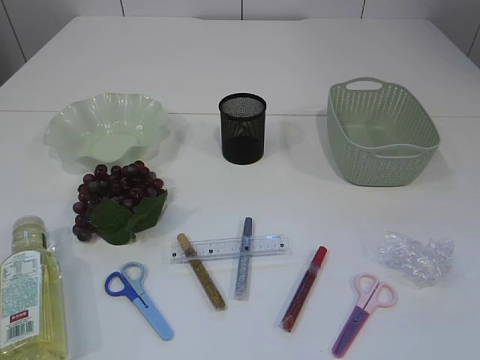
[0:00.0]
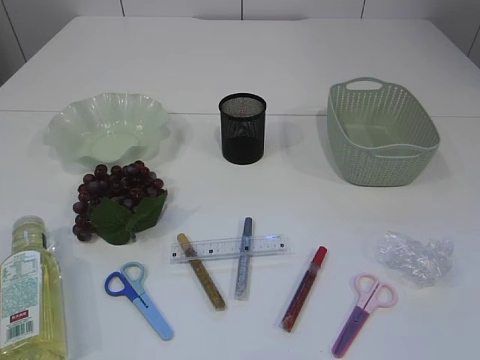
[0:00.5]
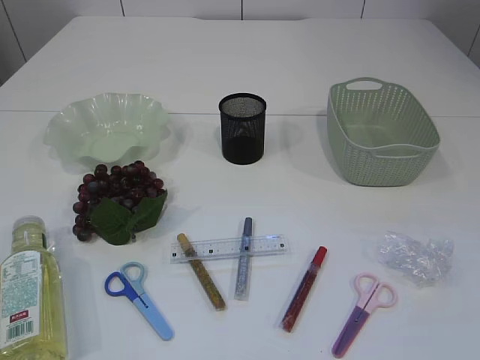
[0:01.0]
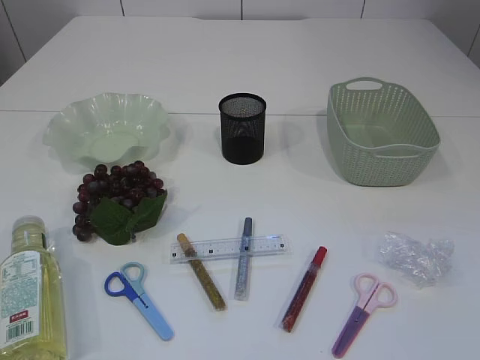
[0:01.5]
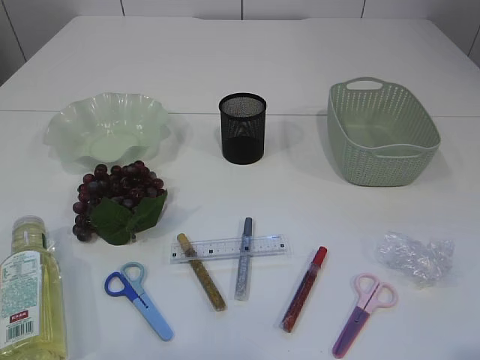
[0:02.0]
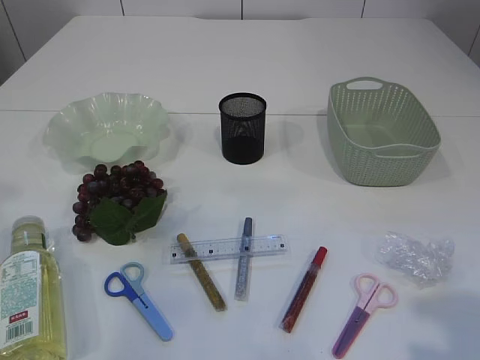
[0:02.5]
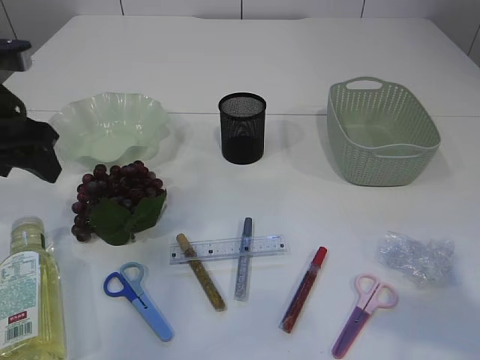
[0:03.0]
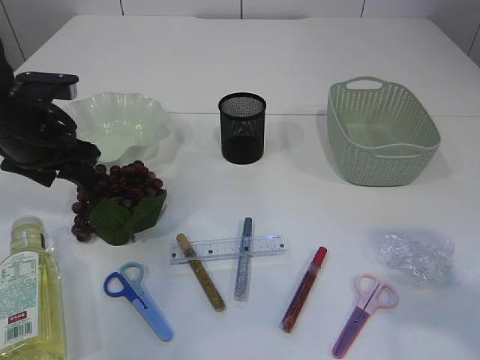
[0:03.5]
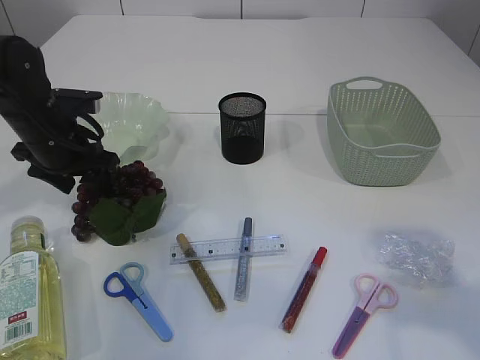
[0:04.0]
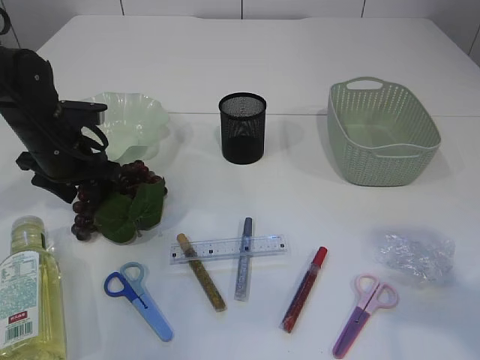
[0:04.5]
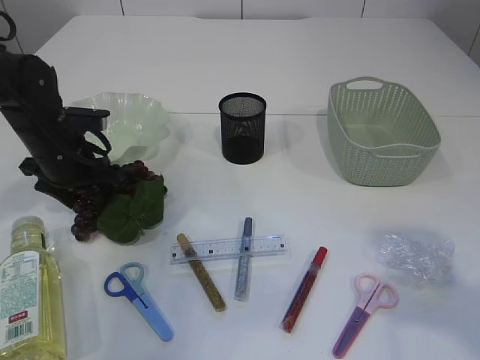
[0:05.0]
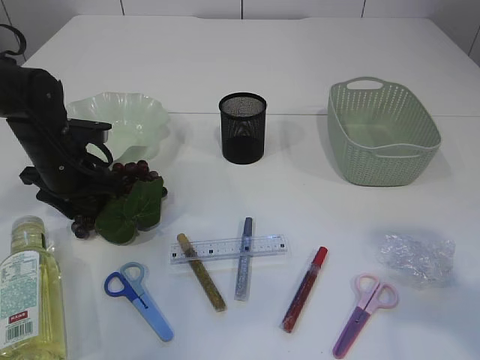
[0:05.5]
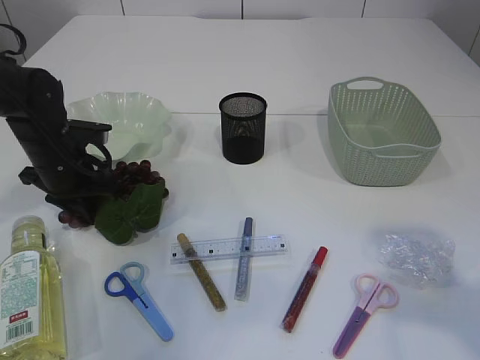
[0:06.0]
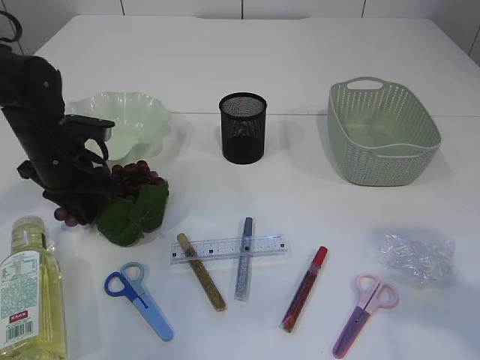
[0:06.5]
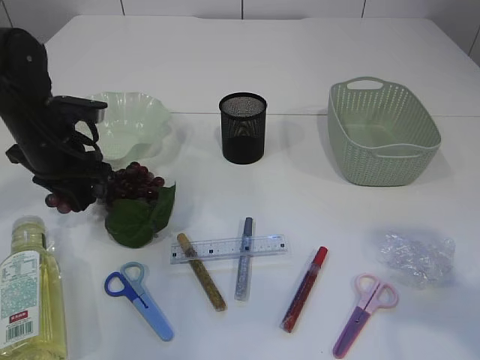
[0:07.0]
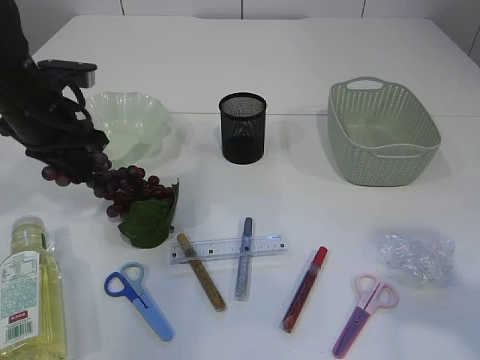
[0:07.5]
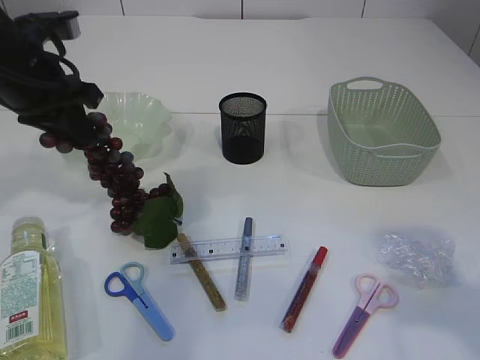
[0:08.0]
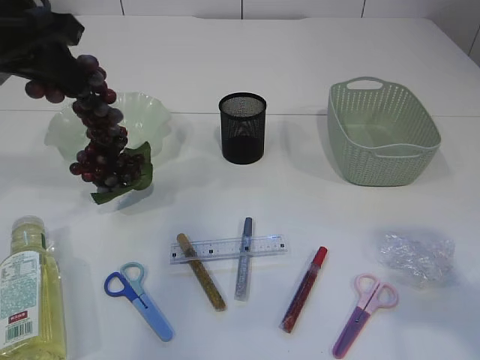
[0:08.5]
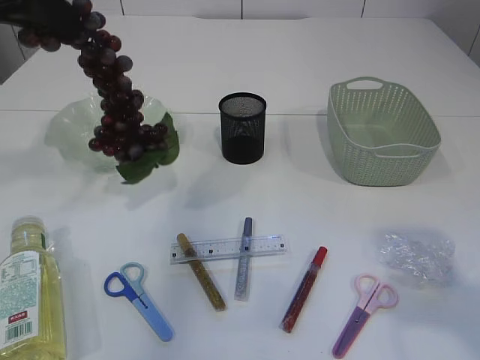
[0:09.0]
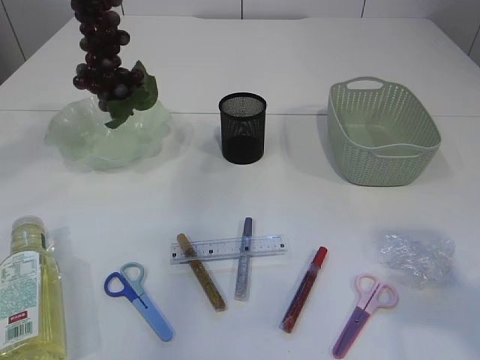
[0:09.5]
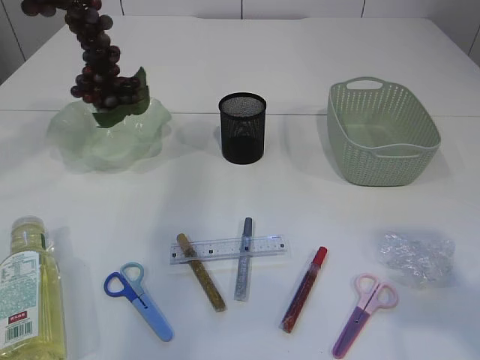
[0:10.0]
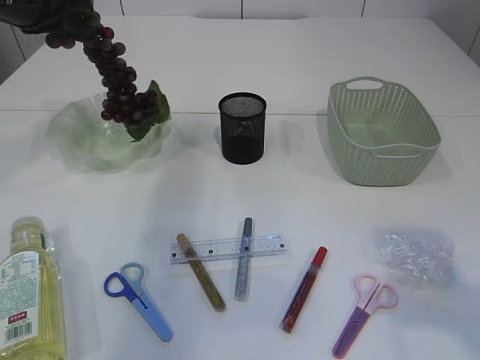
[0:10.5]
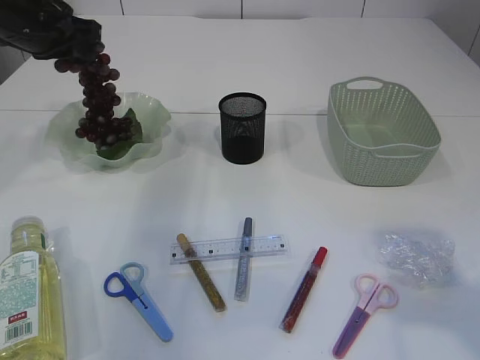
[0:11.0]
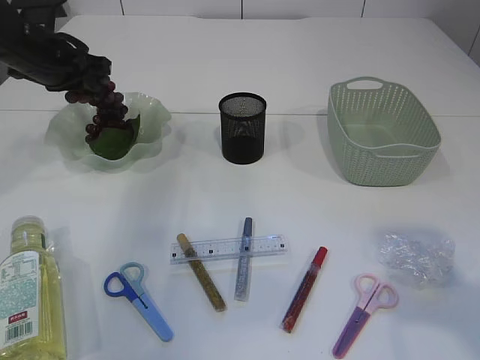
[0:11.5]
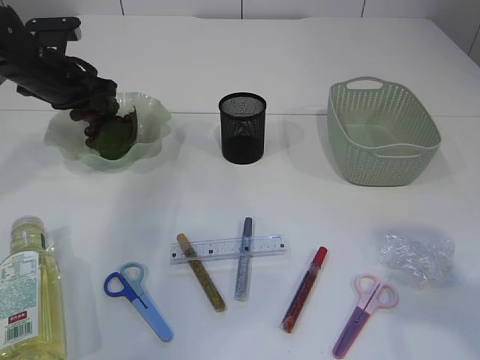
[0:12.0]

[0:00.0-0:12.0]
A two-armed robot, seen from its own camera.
Step, 0:00.0 to 0:08.5: Pick up the grapes.
0:02.0 to 0:04.0: The left gripper heads forward and downward, covering about 40 cm; the right gripper shifts approximately 15 cm forward.
0:04.0 to 0:06.0: The left gripper closes its fingers.
0:06.0 to 0:08.0: The left gripper goes roughly 15 cm upward.
0:08.0 to 0:10.0: The left gripper is displaced upward by some 10 cm.
0:10.0 to 0:12.0: The left gripper shifts some 20 cm downward and forward.

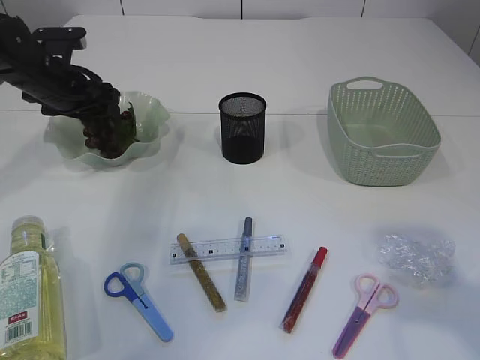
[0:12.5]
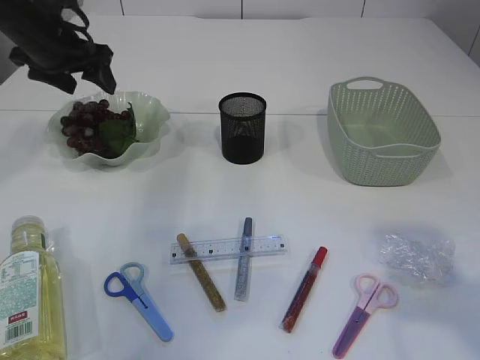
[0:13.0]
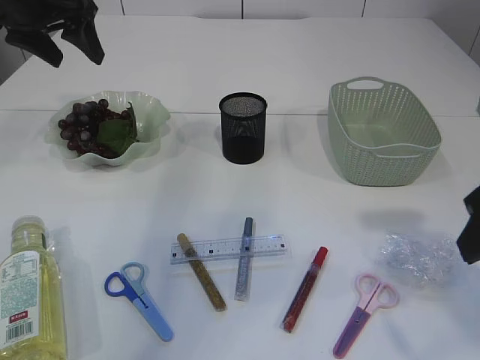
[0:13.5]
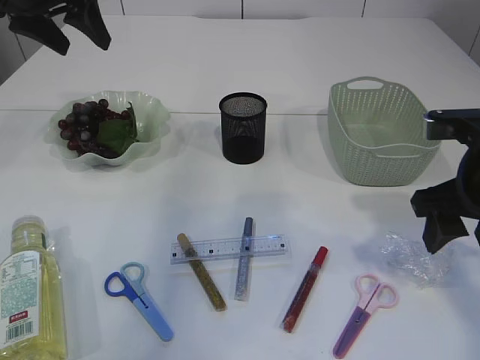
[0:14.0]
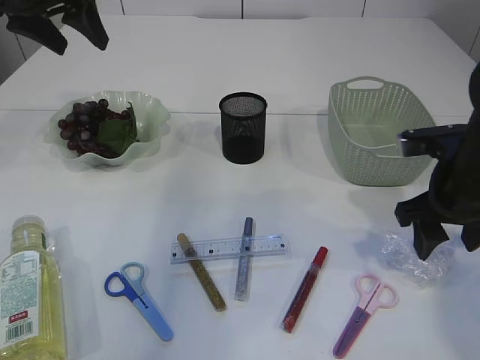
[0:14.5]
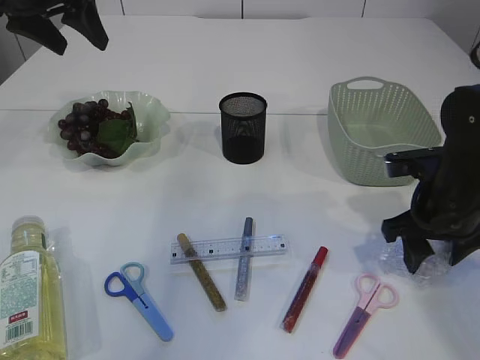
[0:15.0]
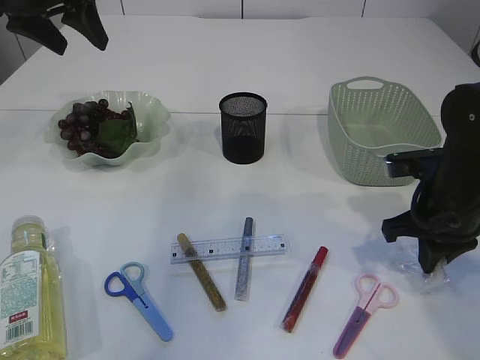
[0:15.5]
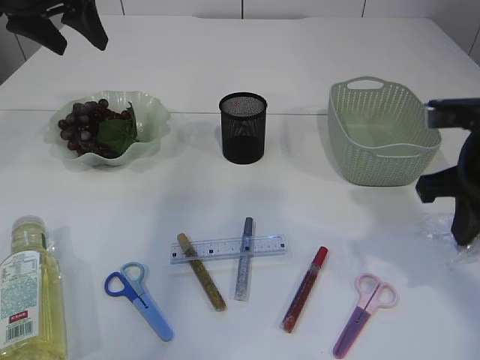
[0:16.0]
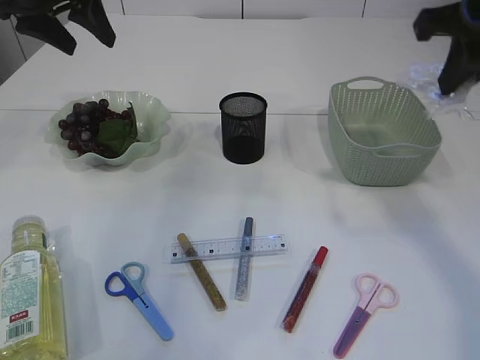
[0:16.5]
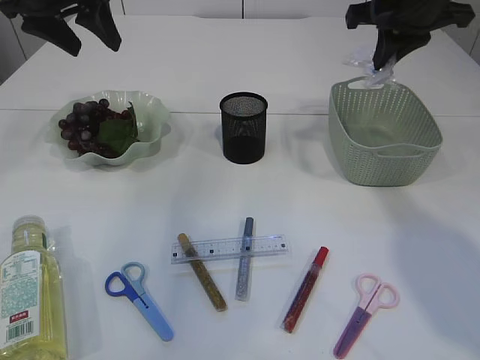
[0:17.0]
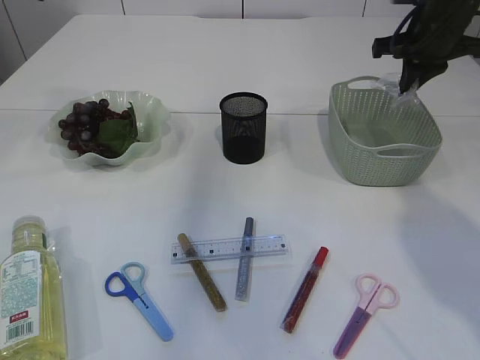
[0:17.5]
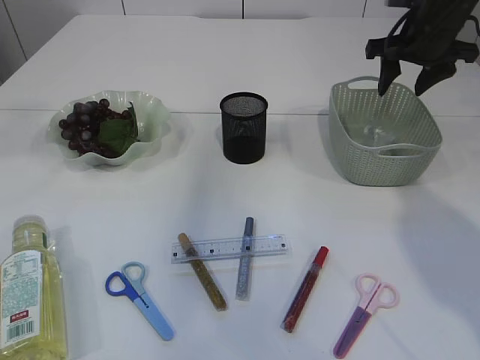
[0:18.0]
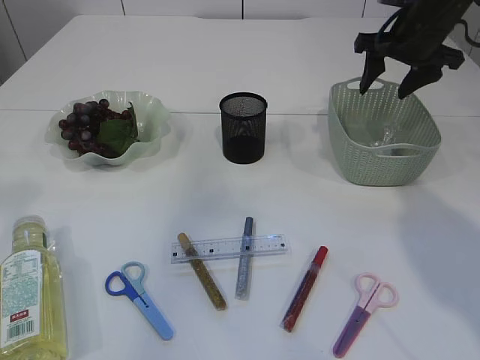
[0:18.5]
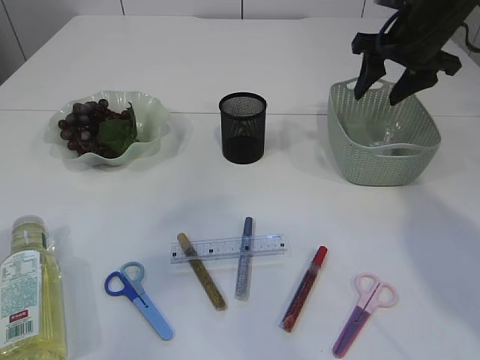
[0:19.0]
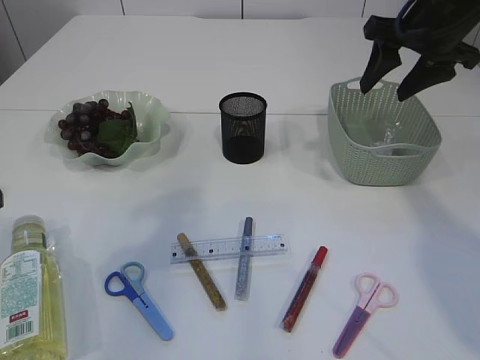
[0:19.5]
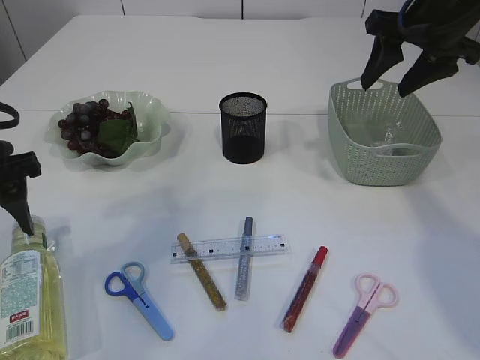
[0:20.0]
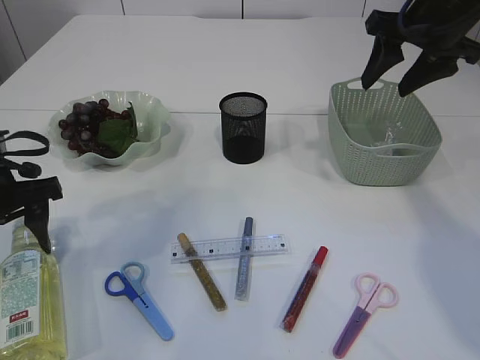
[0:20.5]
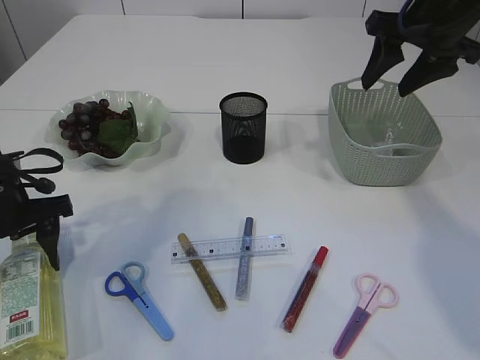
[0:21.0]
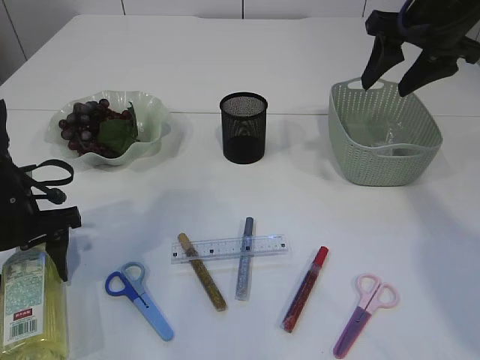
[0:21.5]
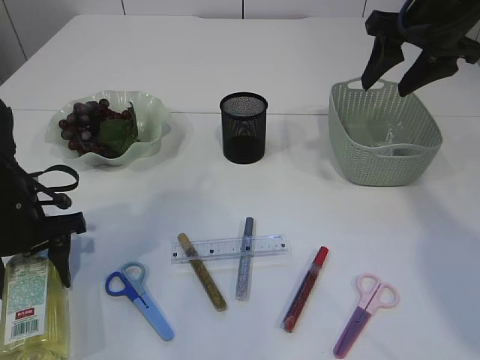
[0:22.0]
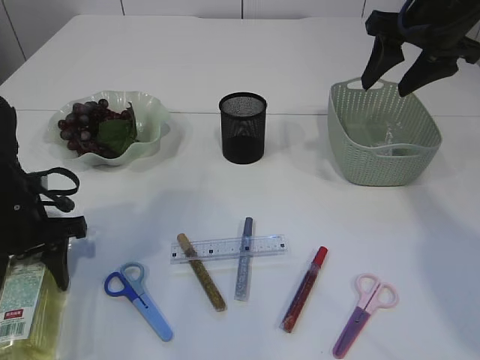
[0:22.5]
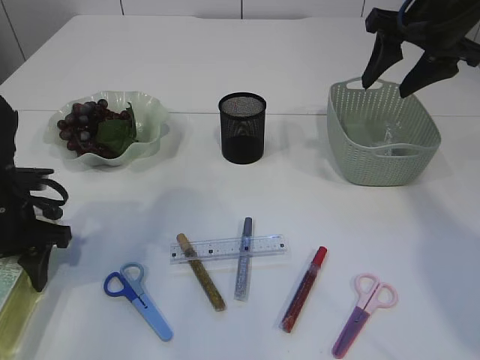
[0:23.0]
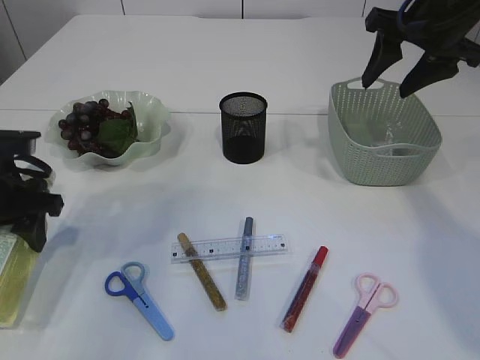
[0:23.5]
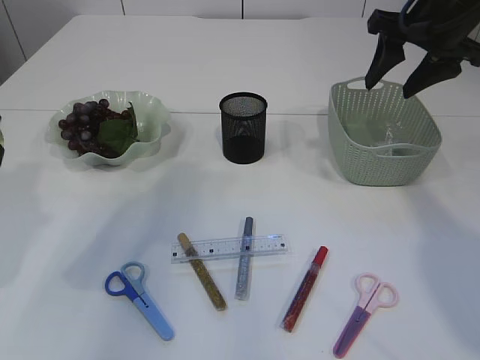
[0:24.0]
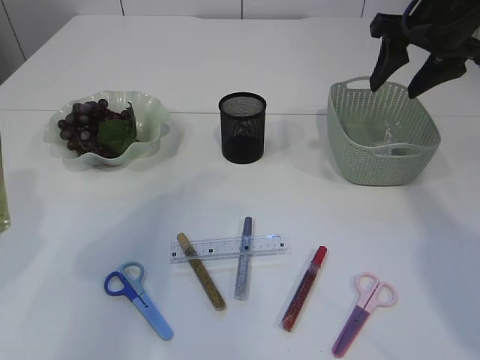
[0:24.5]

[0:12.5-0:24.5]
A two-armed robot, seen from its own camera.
Step, 0:13.5 to 0:15.5: Pick up the plastic.
Step, 0:16.0 to 0:18.5: Place the plastic in the basket.
Step, 0:19.0 to 0:23.5: Pick up the bottle with the left arm.
0:12.5 to 0:14.5: The right gripper travels forward and downward by some 20 cm, while the left gripper goes some 15 cm upward.
0:14.5 to 0:16.5: The right gripper travels upward by about 15 cm, and closes up.
0:16.5 to 0:18.5: The right gripper travels forward and downward by roughly 20 cm, and opens. Meanwhile the left gripper goes some 25 cm backward and upward.
0:18.5 to 0:20.5: The right gripper is displaced backward by roughly 5 cm. Meanwhile the left gripper moves downward, about 25 cm.
0:20.5 to 0:22.5: The left gripper moves downward, approximately 5 cm.
0:22.5 to 0:24.5: The left gripper shifts some 20 cm upward and backward.

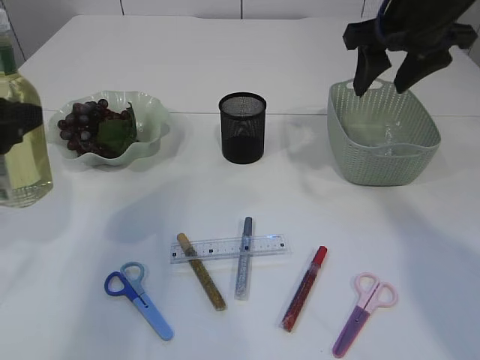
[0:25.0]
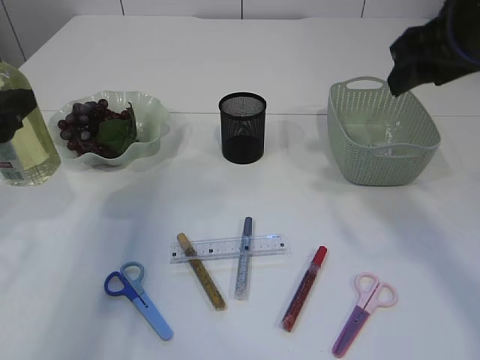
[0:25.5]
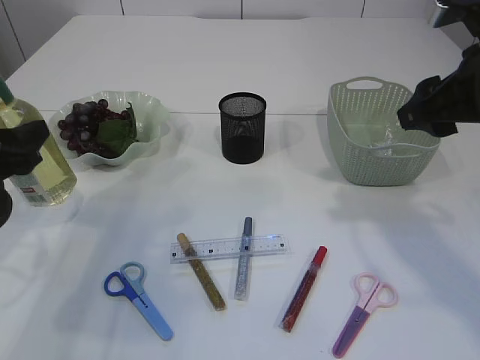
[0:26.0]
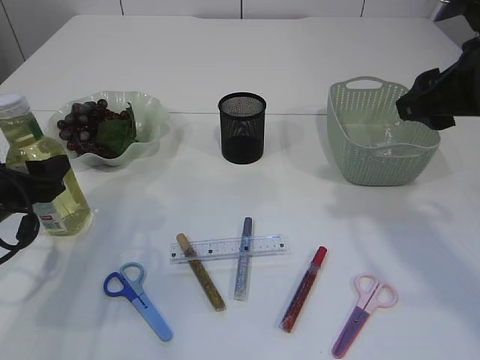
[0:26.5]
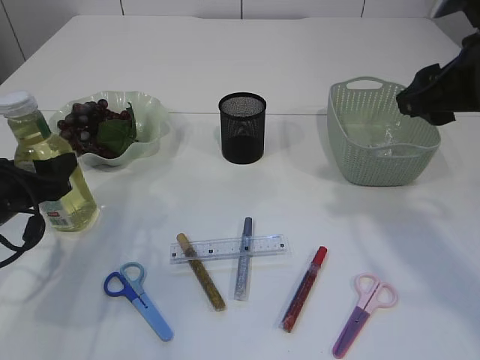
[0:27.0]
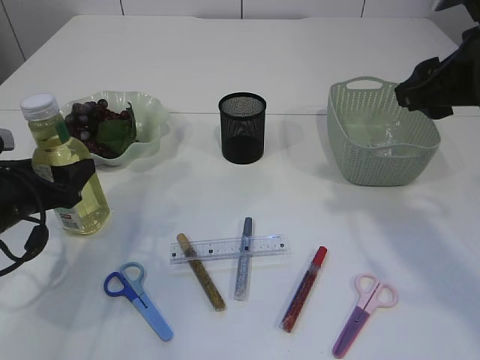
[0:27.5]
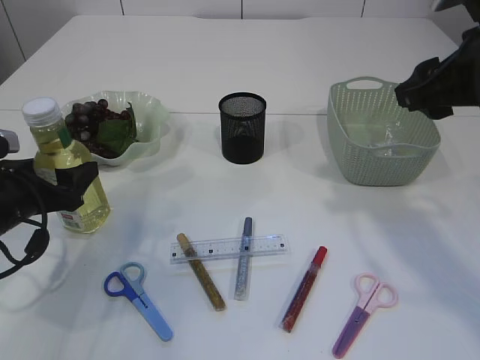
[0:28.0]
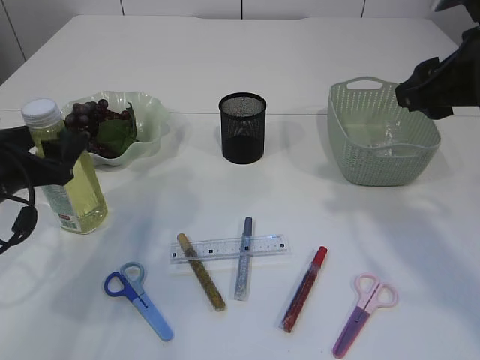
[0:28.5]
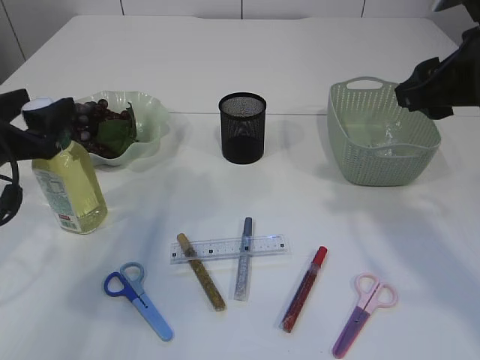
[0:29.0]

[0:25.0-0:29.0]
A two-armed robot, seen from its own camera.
0:25.0 to 0:27.0: The left gripper travels downward by approximately 15 cm. Meanwhile the right gripper travels backward by approximately 10 cm.
0:27.0 to 0:29.0: The left gripper moves upward, about 5 cm.
